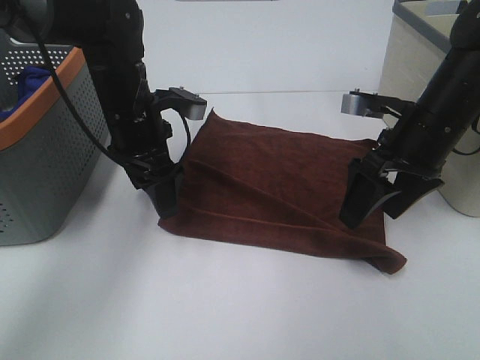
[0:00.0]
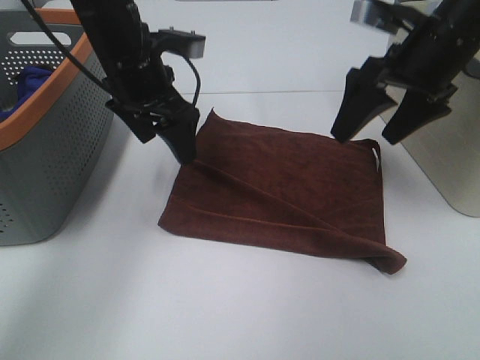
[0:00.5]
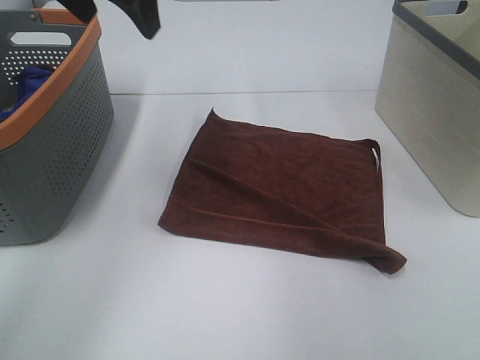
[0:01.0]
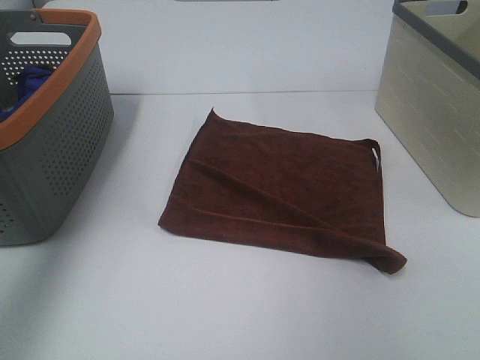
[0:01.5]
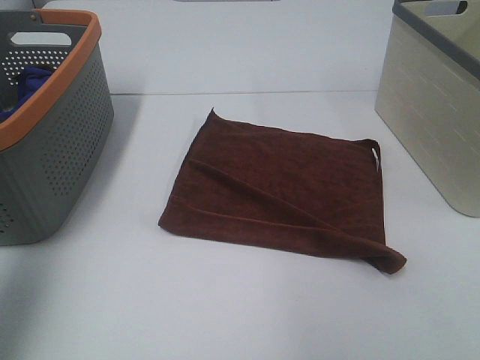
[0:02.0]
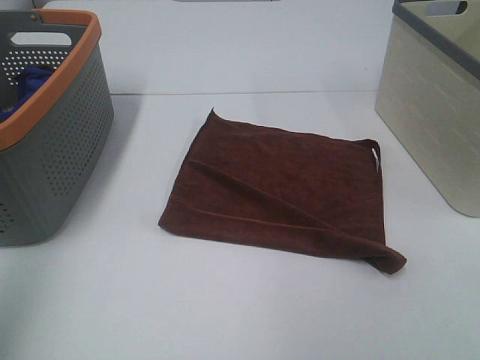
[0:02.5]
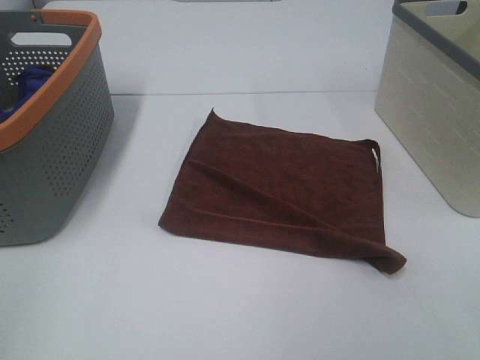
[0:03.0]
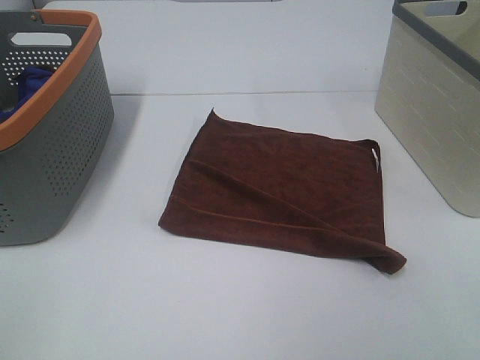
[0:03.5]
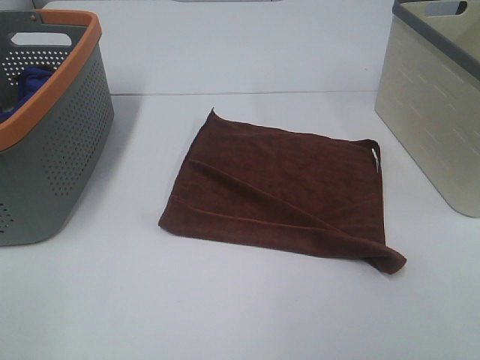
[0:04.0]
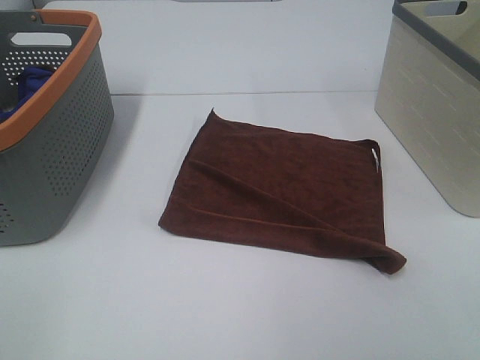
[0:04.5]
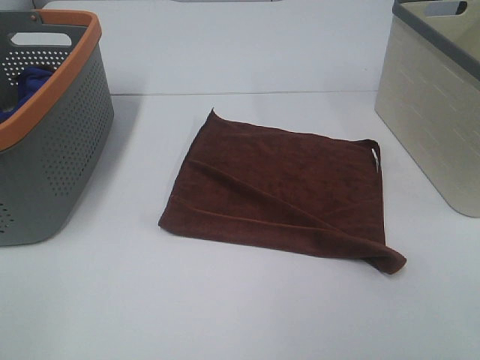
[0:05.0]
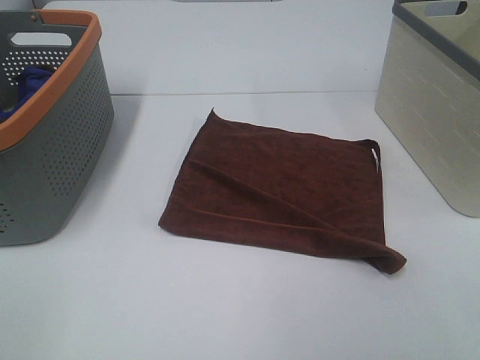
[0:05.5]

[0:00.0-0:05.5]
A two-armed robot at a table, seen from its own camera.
Task of the whole recording: Remove the towel and place it.
0:00.0 to 0:02.0: The left gripper shifts some 40 cm upward, backward and to the left, while the right gripper is displaced backward and upward by some 35 cm.
0:02.0 to 0:03.5: The left gripper is displaced backward and downward by approximately 20 cm.

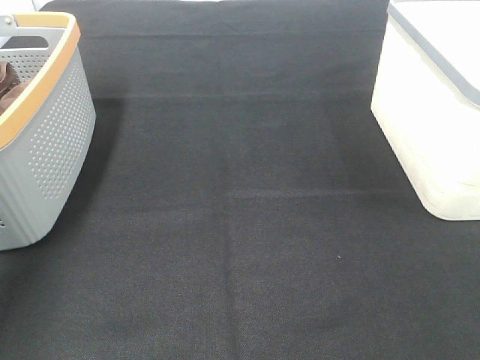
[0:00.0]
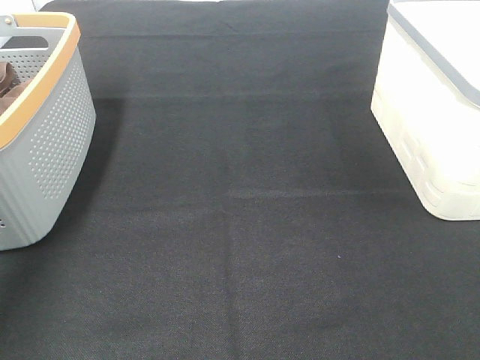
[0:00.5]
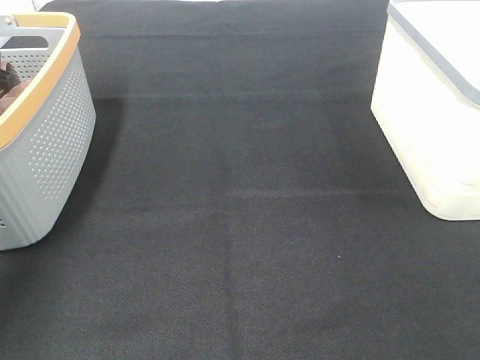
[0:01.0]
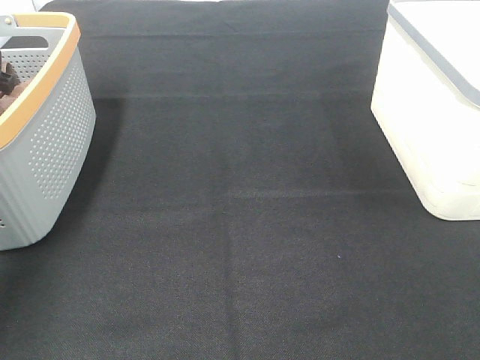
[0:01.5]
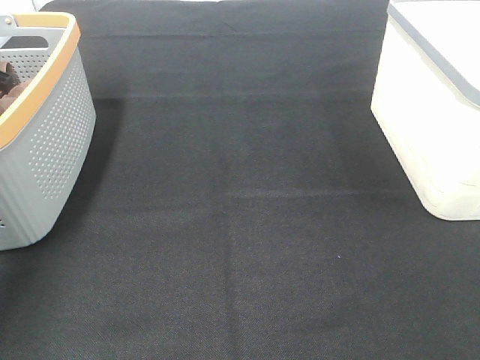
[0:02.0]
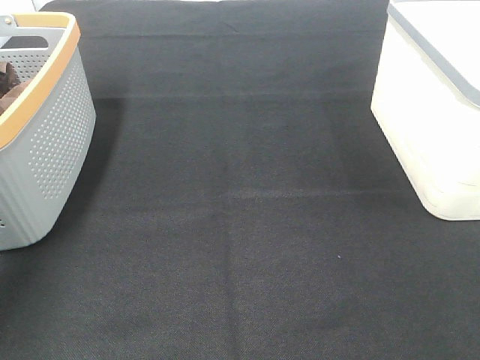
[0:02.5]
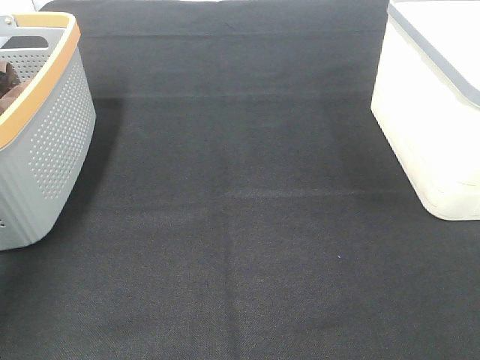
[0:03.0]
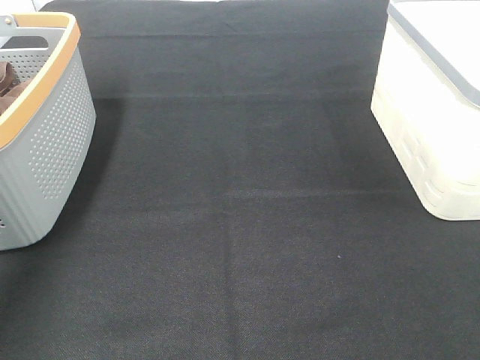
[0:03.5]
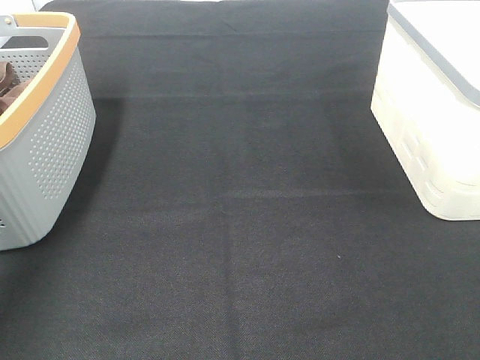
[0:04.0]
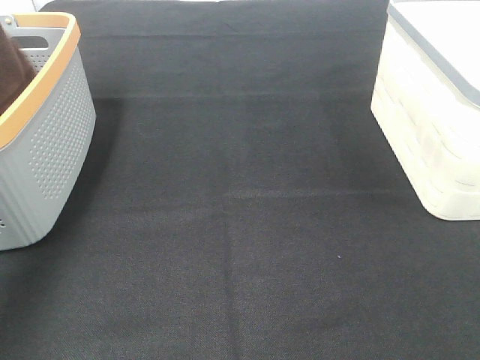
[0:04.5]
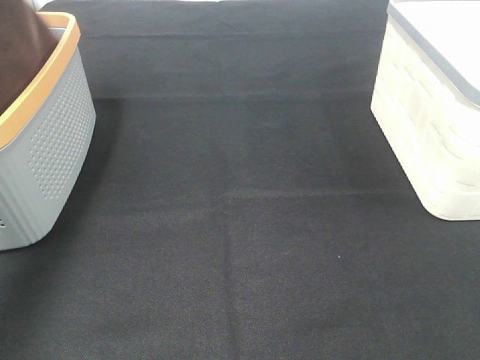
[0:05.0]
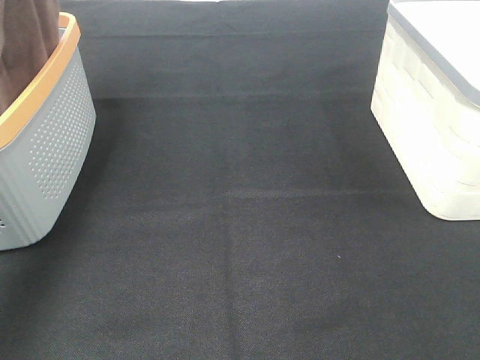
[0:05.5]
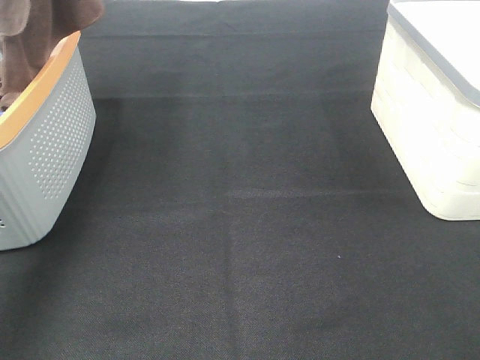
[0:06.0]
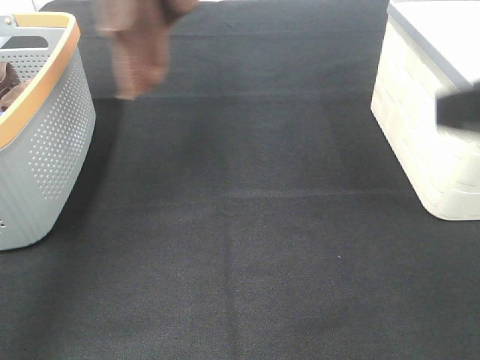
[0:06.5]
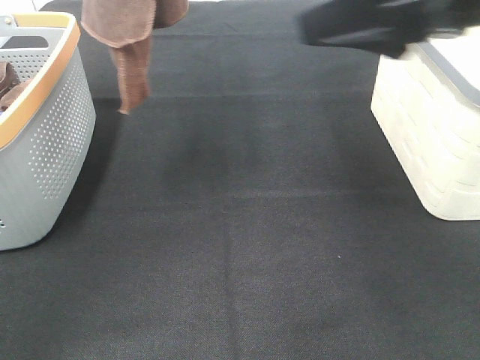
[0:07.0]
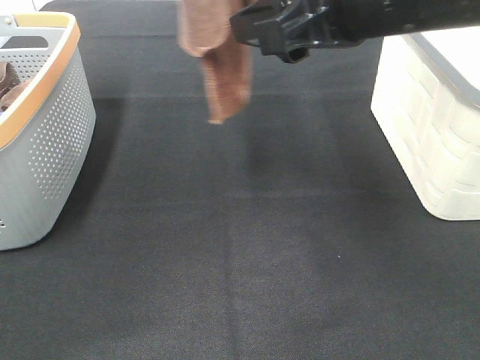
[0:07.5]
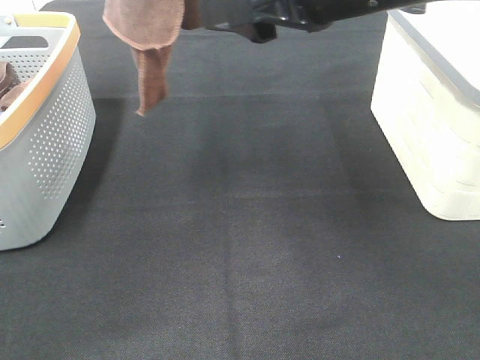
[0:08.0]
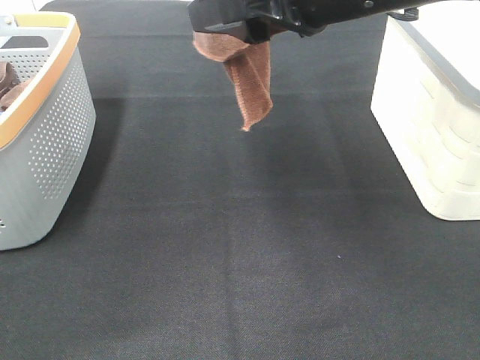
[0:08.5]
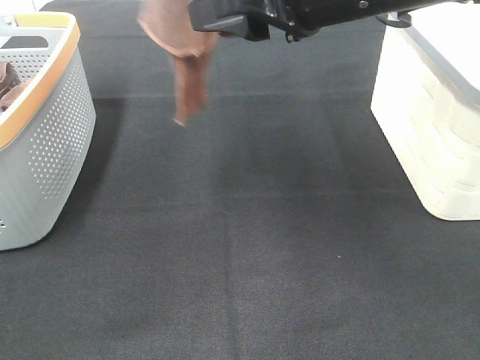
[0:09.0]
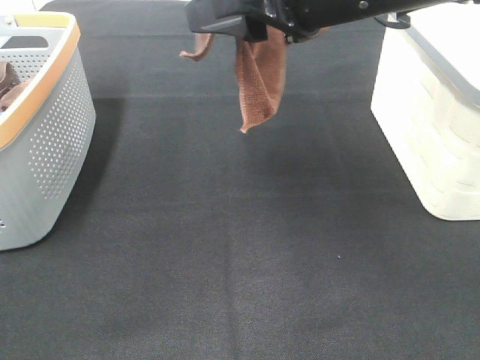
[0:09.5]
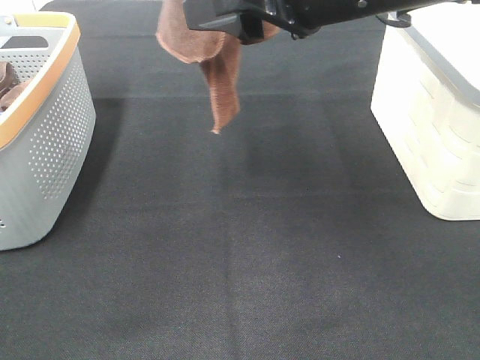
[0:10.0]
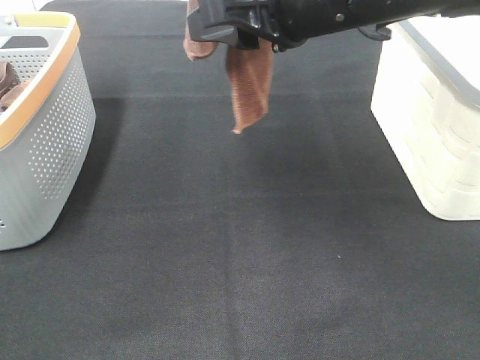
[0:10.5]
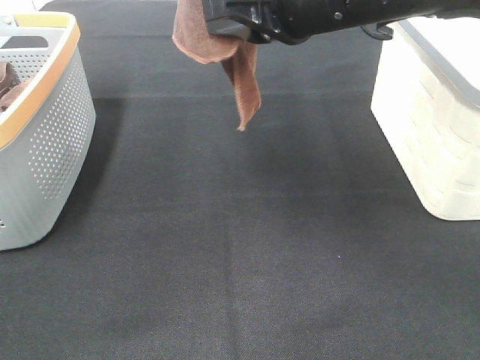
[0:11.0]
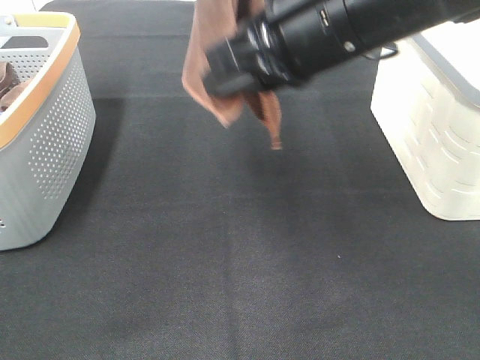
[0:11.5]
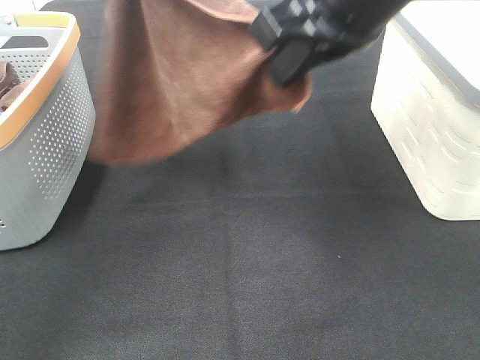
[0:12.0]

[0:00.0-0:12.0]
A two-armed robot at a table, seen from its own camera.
Task of the whole recording: Remove the towel and place it.
Step, 0:03.0 to 0:07.5: Right hand: grab a corner of the brown towel and straighten it.
Step, 0:08.0 to 0:10.5: Left hand: spread the brown towel flat on the table.
Step, 0:08.0 to 0:10.5: Right hand: spread the brown towel flat on the table.
0:04.0 to 0:06.0: The left gripper heads upward and to the right, covering some 20 cm.
0:06.0 to 0:08.0: The left gripper shifts about 10 cm to the right; the right gripper heads forward and to the left, covering some 25 cm.
0:08.0 to 0:10.0: There are only small adjustments of the grippers.
0:10.0 to 0:12.0: The right gripper closes its fingers; the left gripper heads to the left, covering approximately 5 cm.

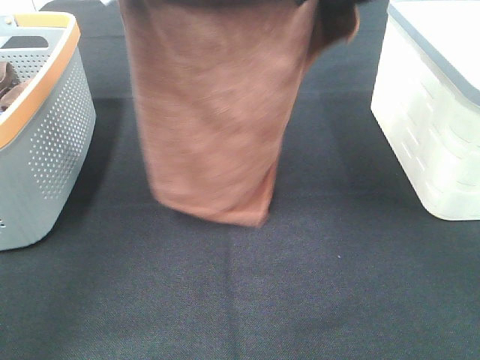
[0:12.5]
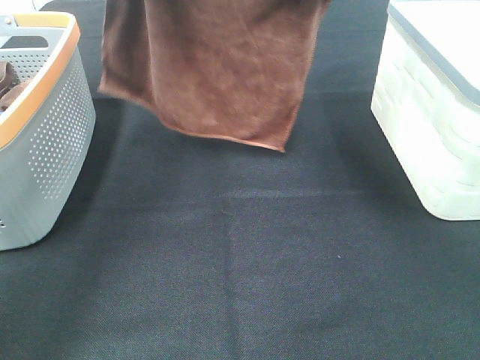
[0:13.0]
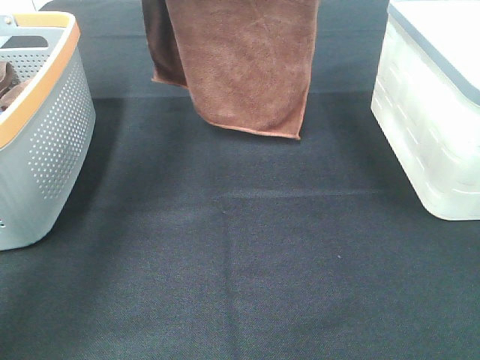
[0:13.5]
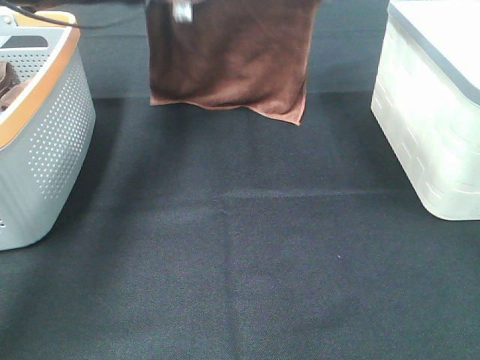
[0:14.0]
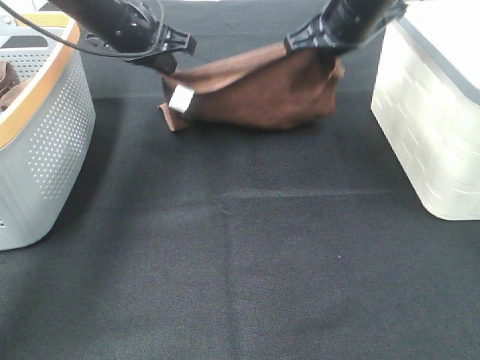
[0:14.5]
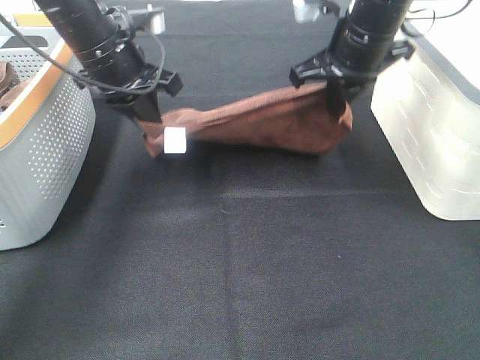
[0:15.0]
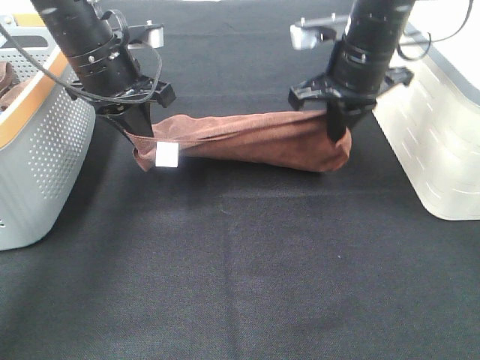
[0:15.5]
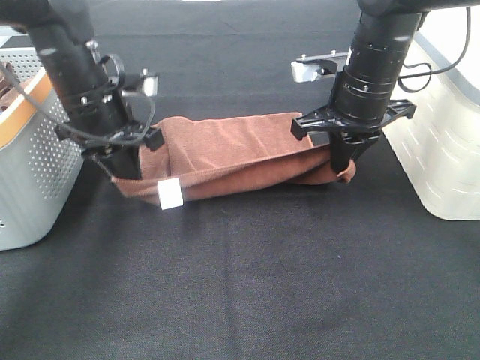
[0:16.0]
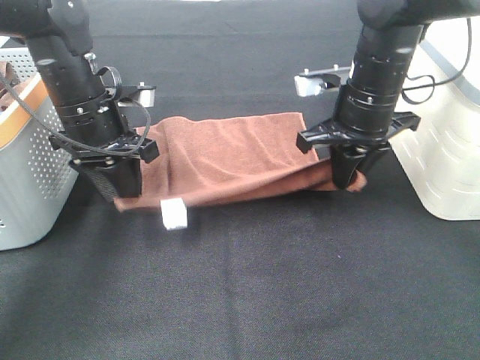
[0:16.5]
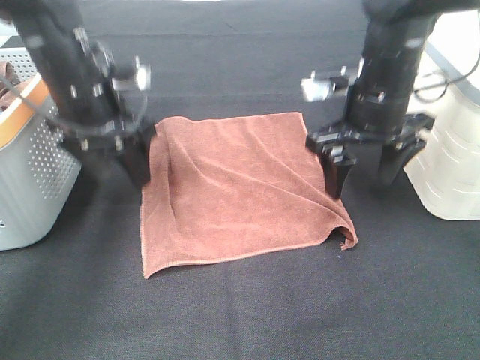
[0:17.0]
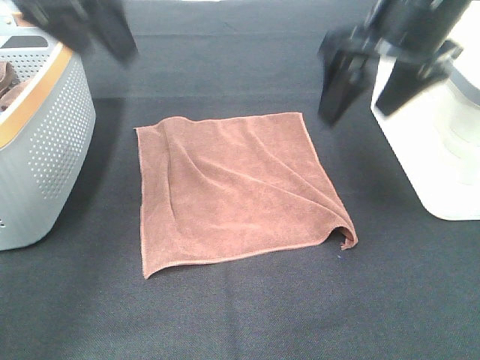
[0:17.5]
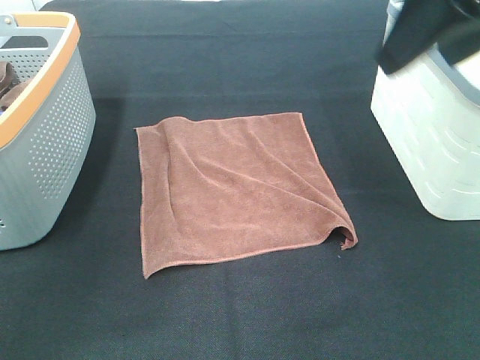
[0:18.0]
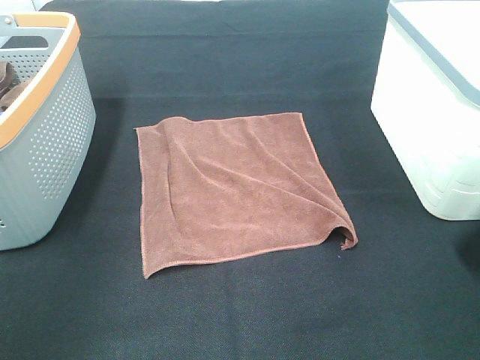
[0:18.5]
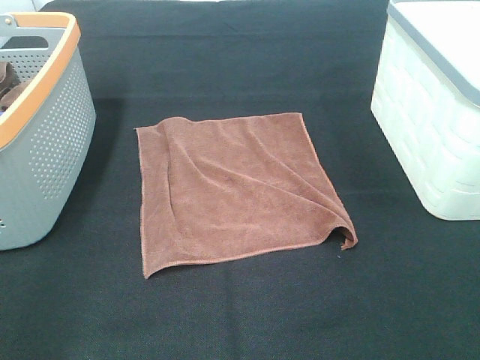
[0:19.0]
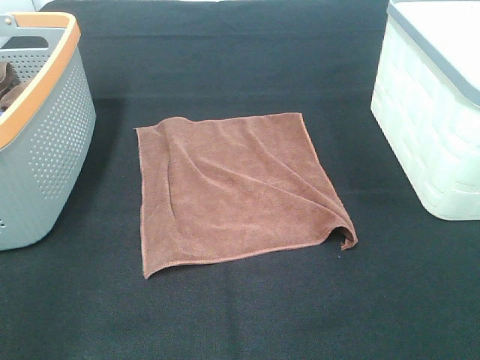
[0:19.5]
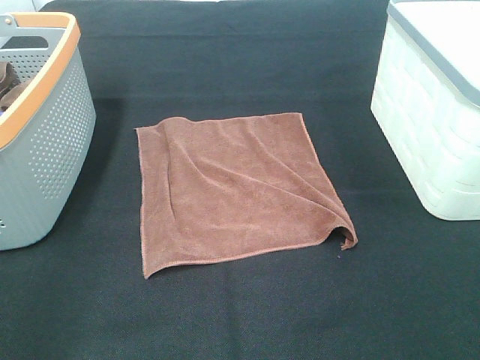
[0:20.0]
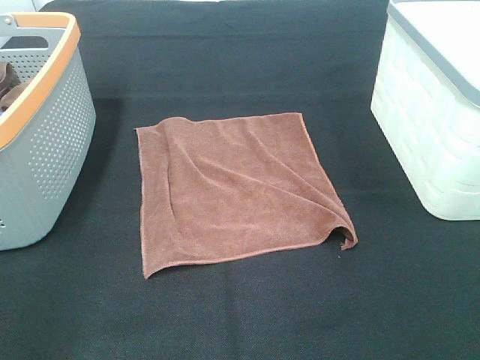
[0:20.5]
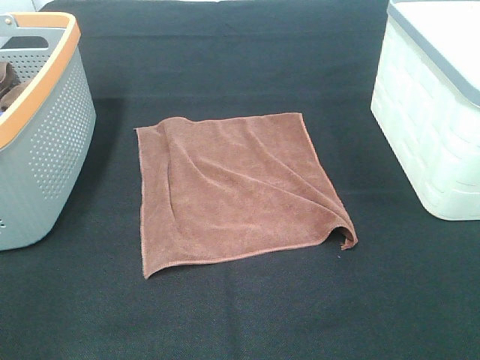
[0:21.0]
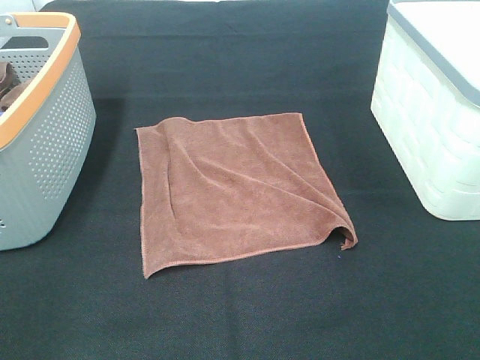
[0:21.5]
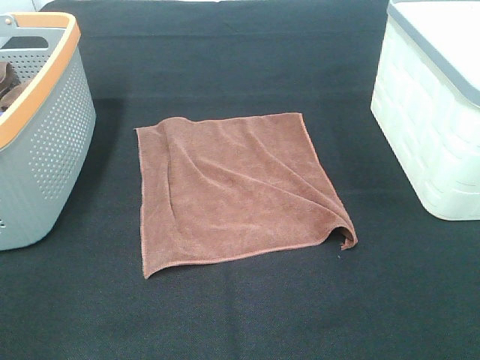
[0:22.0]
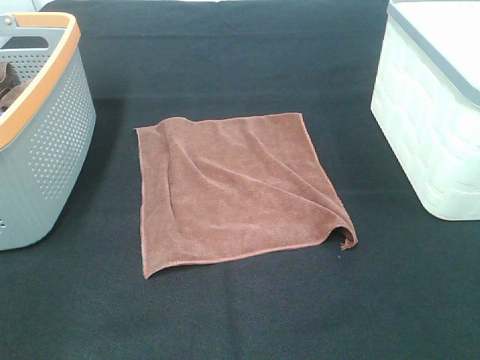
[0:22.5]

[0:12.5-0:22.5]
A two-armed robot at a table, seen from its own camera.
Task of the whole recording: Remove the towel and place it.
0:12.5 to 0:14.5: The left gripper travels downward and forward by some 20 cm. The right gripper heads forward and downward, covering approximately 20 cm.
0:14.5 to 0:16.5: The left gripper is displaced backward and downward by approximately 10 cm, and opens. Meanwhile the right gripper is displaced downward and backward by some 10 cm, and opens up.
0:16.5 to 0:18.5: Both grippers travel together backward and upward, some 30 cm. The right gripper opens.
